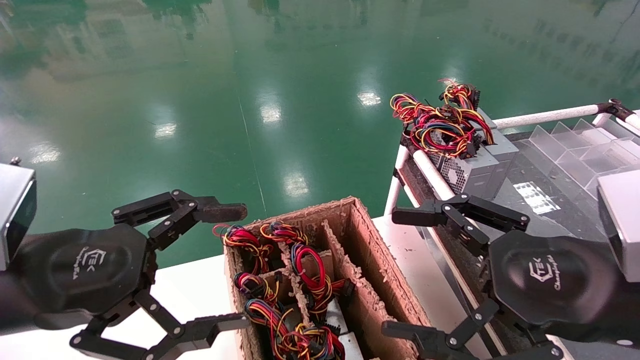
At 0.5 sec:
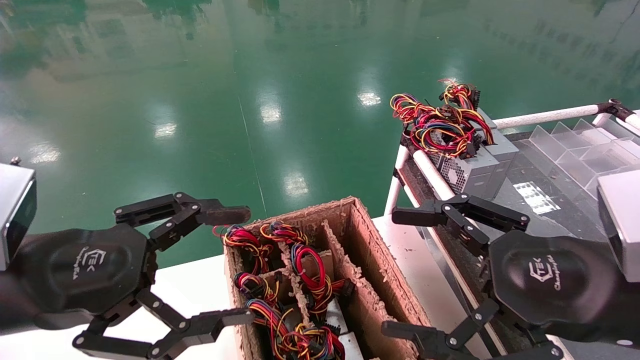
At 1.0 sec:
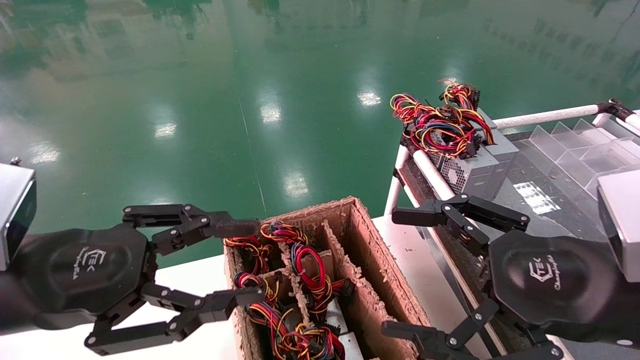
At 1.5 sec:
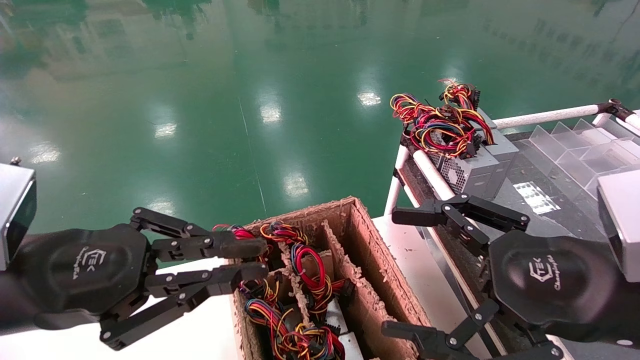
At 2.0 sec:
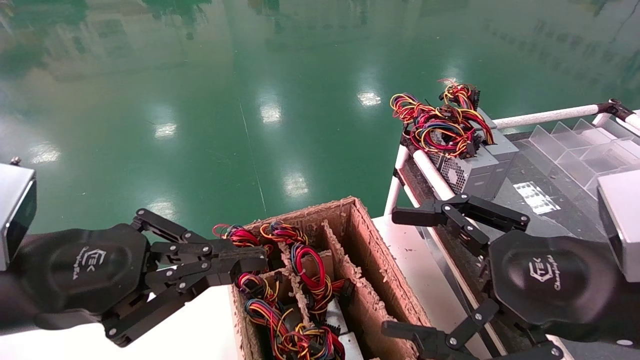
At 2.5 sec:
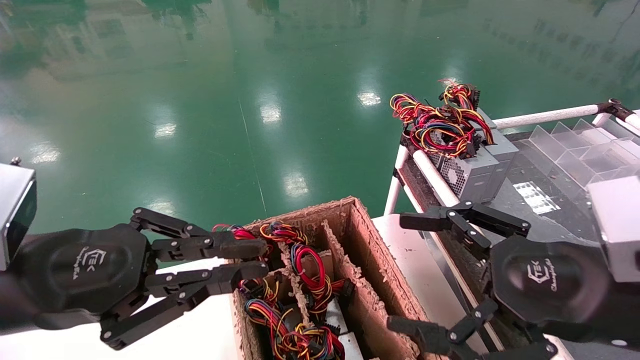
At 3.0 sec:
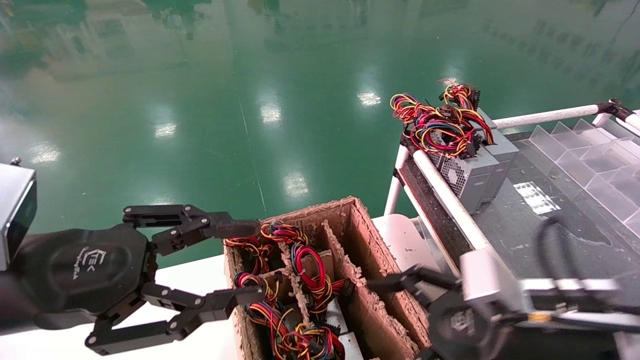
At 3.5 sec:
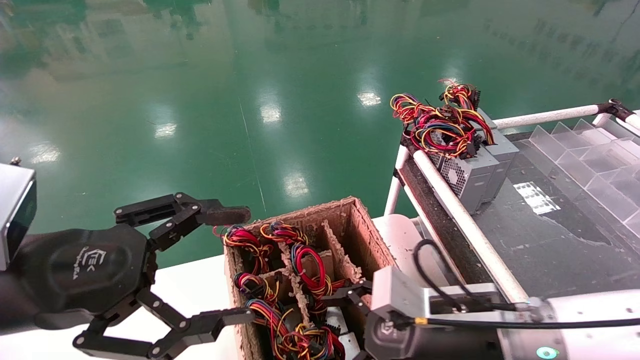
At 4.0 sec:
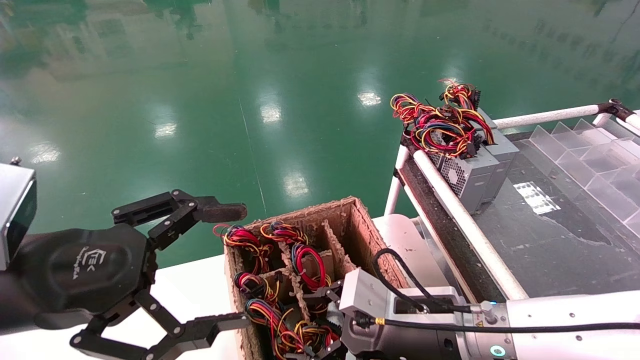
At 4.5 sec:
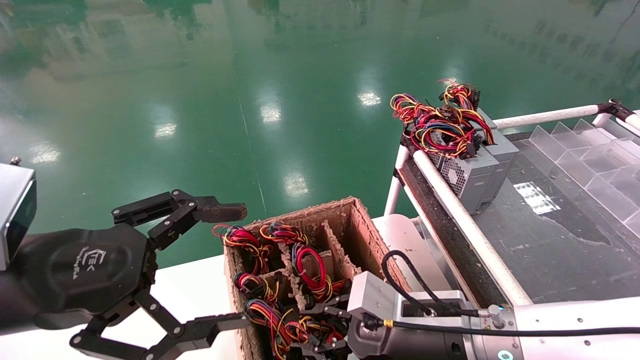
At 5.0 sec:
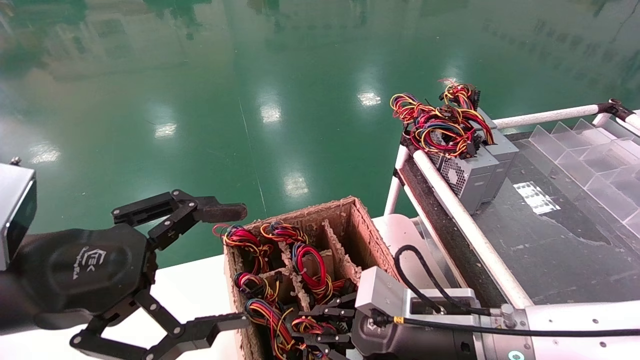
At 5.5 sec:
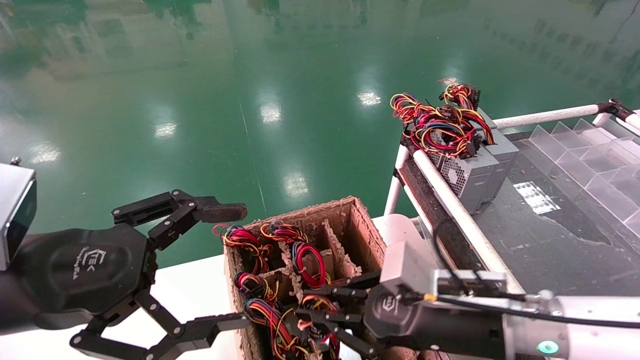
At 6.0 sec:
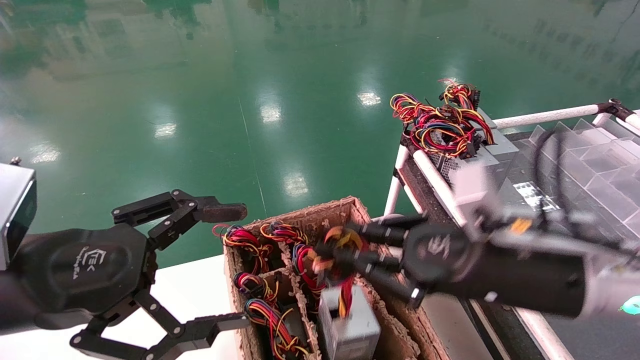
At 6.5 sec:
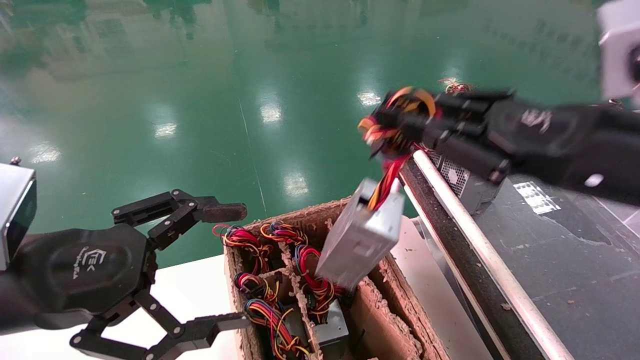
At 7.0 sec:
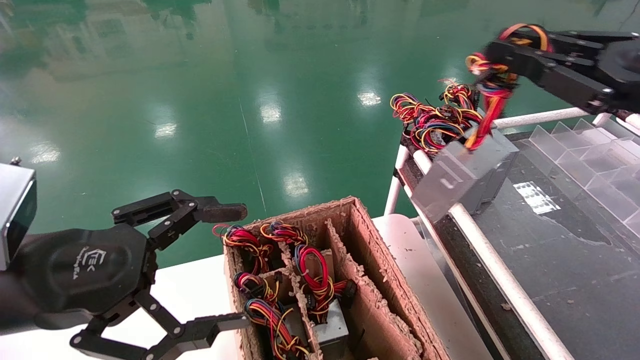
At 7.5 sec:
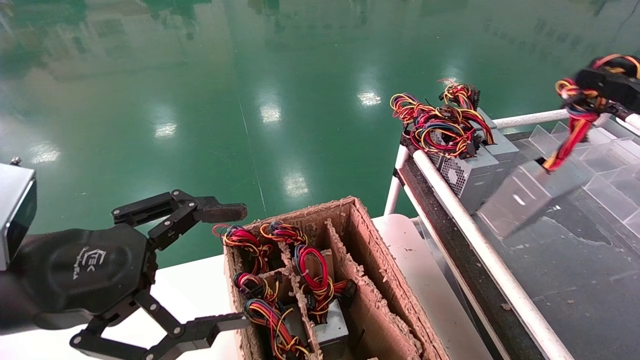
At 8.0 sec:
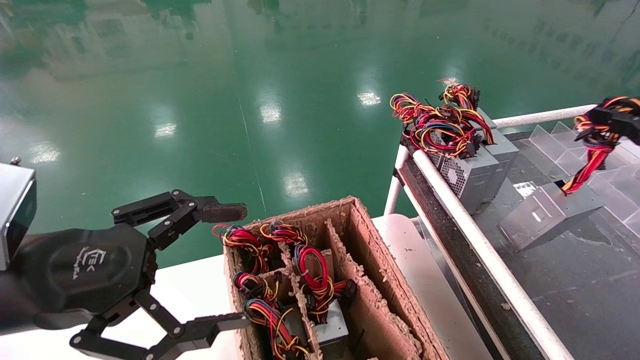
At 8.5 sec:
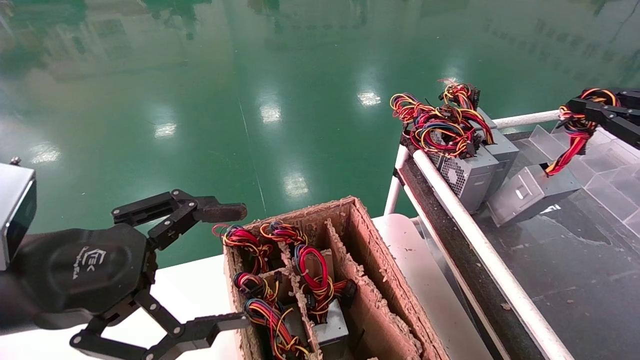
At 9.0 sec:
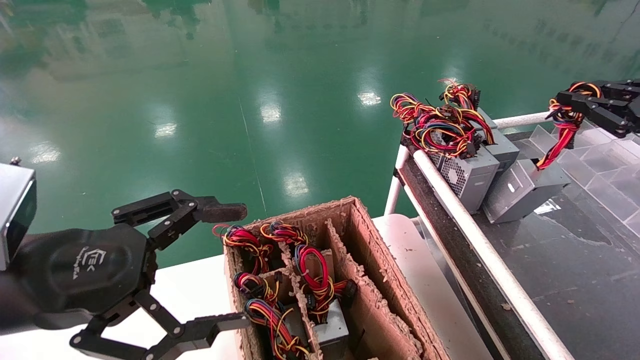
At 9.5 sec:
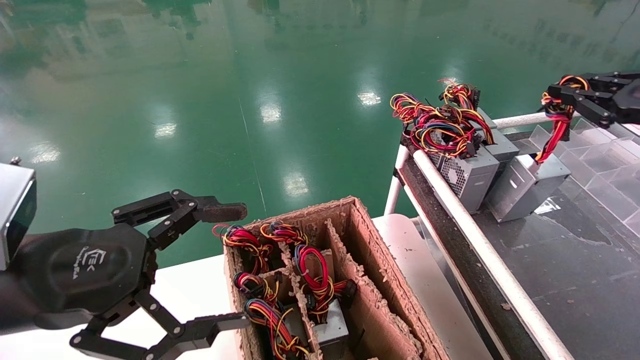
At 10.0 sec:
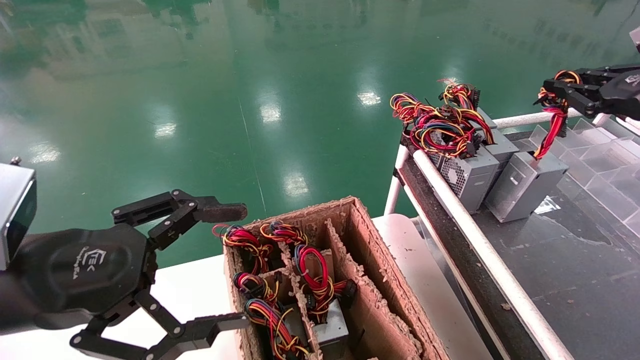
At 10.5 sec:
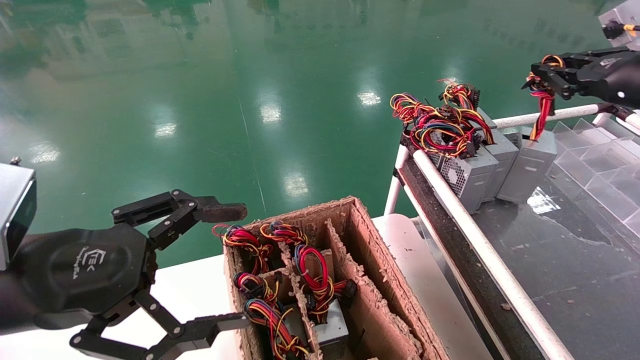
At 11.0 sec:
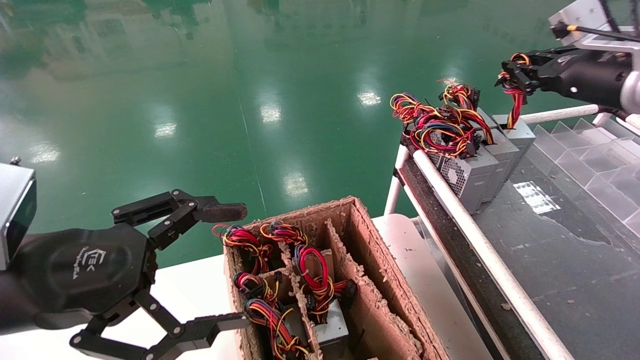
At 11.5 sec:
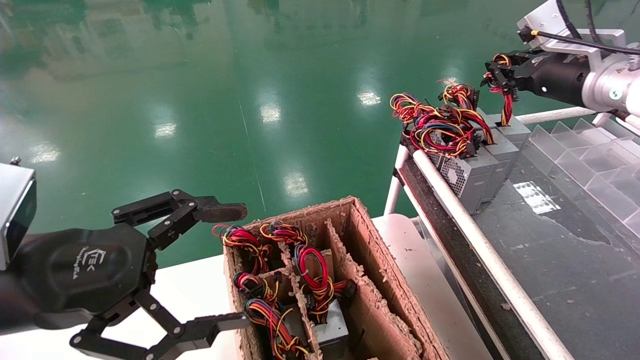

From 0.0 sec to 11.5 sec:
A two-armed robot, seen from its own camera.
Step, from 2.0 sec to 4.5 sec: Grab and lift the power supply from the large box.
From 0.0 sec to 2.0 sec: The left gripper closes.
From 2.0 sec to 4.0 sec: The left gripper opens, while the right gripper goes roughly 20 cm downward, to the left and forward.
From 4.0 sec to 6.0 sec: The right gripper shifts about 15 cm upward and to the right, and closes its fingers.
From 6.0 sec to 7.5 sec: The right gripper is displaced to the right and upward by roughly 25 cm.
From 7.5 sec to 9.5 sec: The right gripper is displaced forward by some 10 cm.
From 9.5 sec to 11.5 sec: The right gripper shifts about 15 cm to the left and forward.

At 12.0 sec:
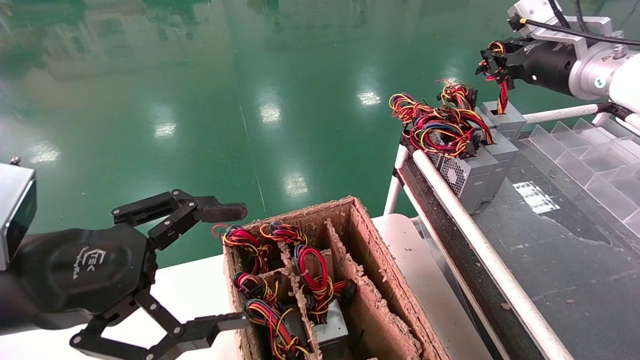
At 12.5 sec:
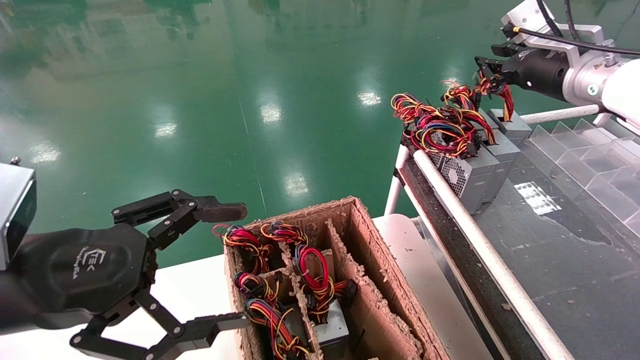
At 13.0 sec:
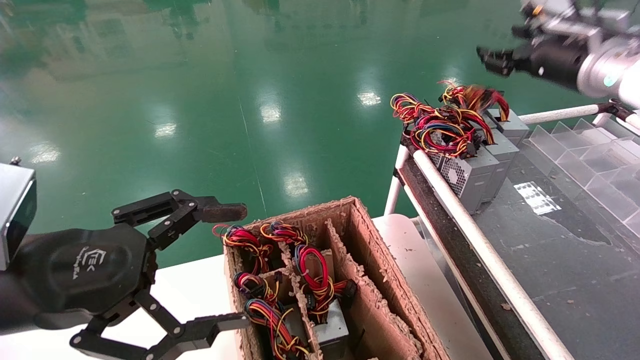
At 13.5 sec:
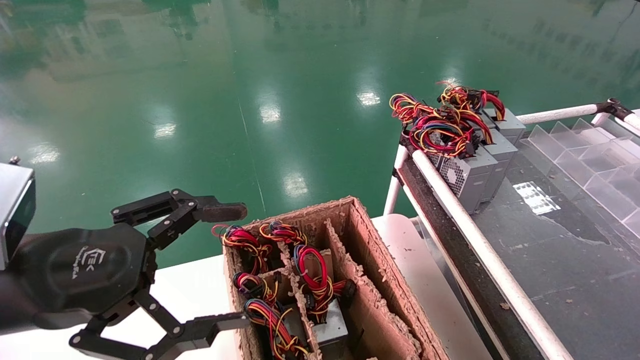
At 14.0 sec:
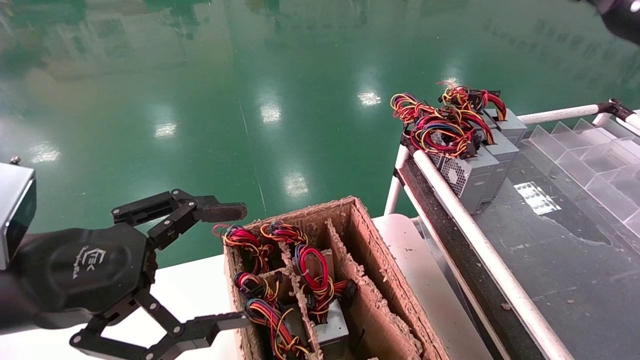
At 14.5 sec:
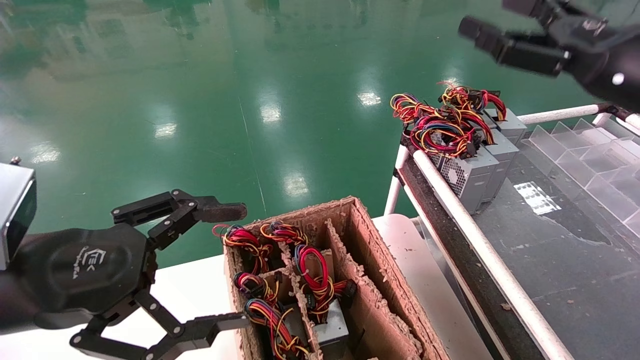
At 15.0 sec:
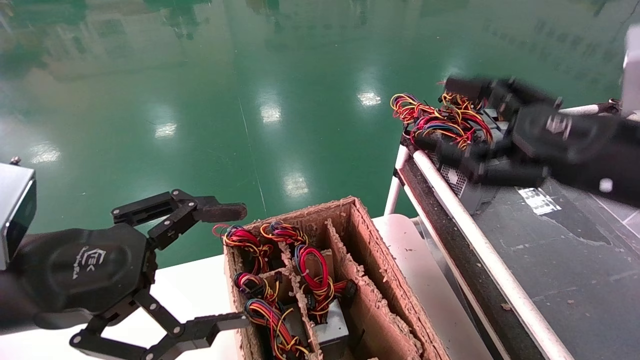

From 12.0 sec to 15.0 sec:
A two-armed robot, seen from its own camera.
From 12.0 sec to 13.5 sec: The right gripper is displaced backward and upward by approximately 10 cm, and opens up.
From 13.5 sec to 15.0 sec: The right gripper travels downward, backward and to the left by approximately 20 cm.

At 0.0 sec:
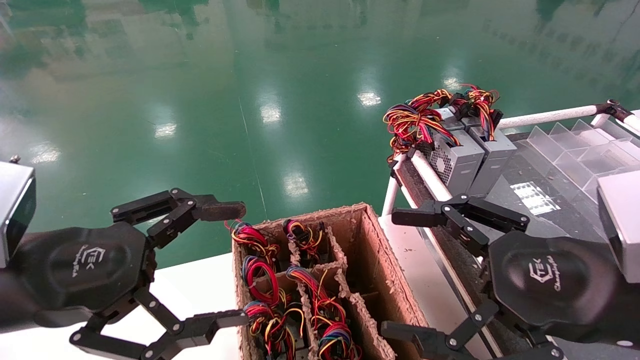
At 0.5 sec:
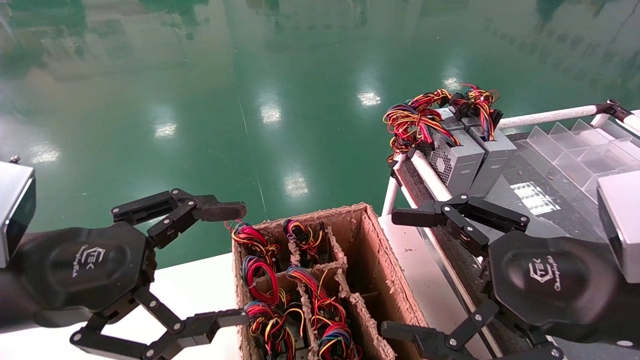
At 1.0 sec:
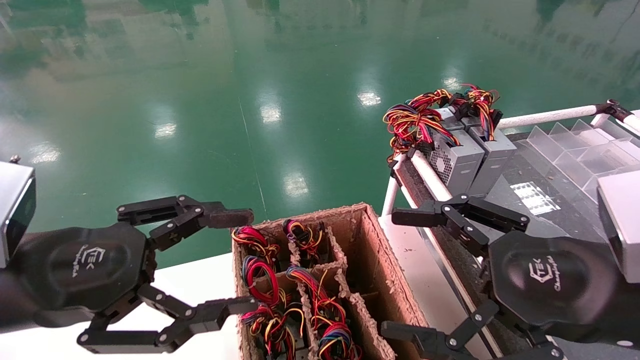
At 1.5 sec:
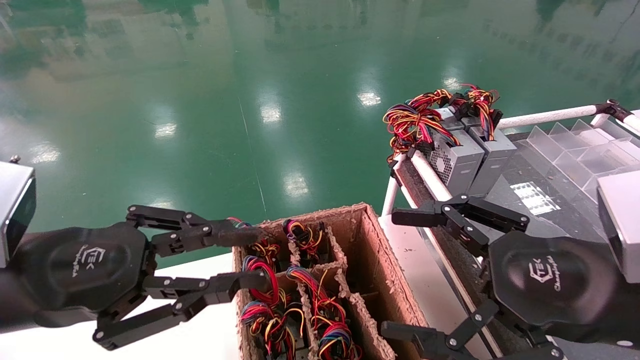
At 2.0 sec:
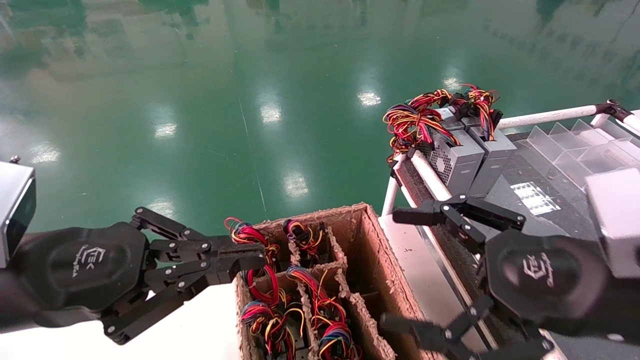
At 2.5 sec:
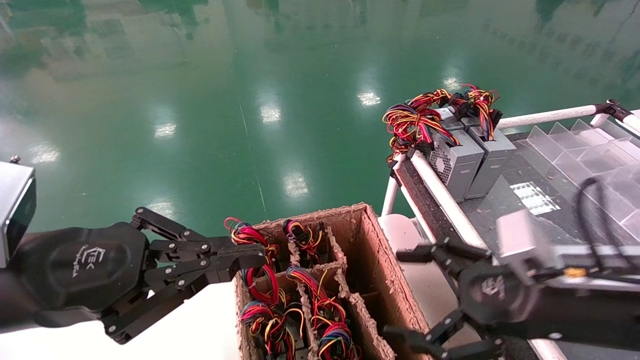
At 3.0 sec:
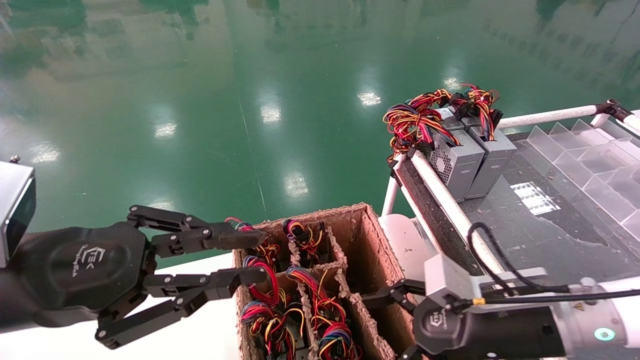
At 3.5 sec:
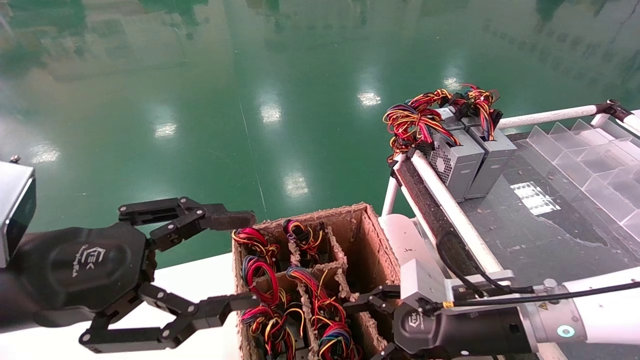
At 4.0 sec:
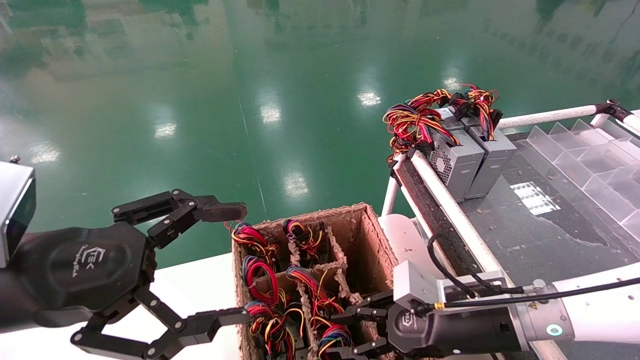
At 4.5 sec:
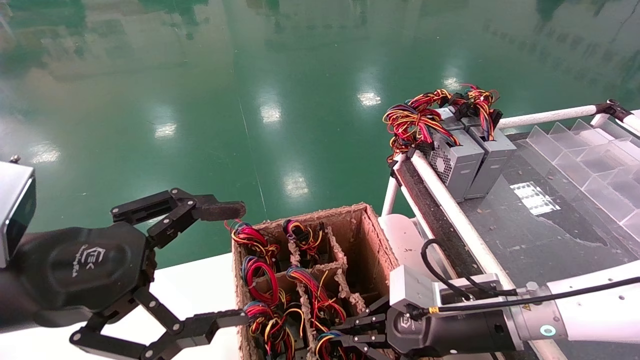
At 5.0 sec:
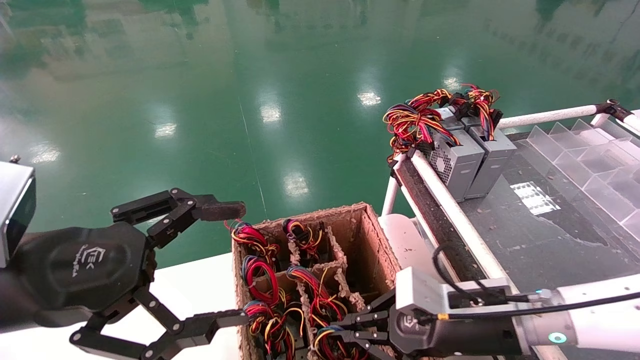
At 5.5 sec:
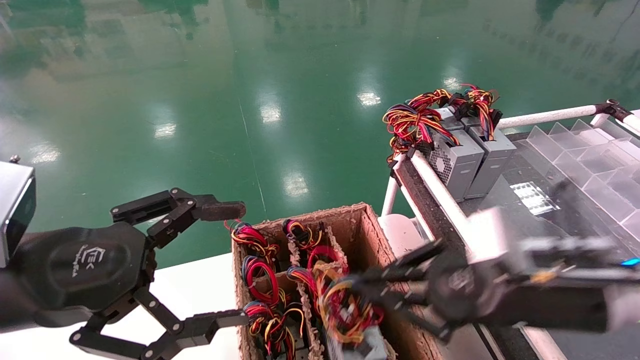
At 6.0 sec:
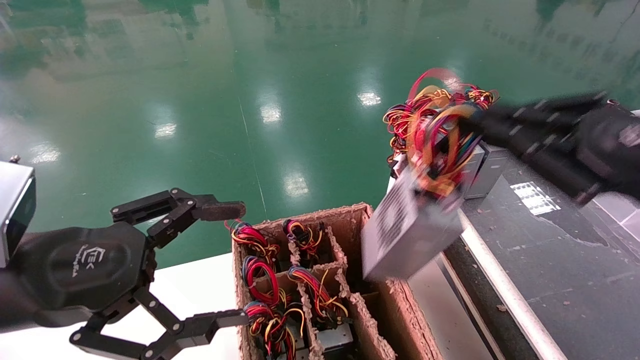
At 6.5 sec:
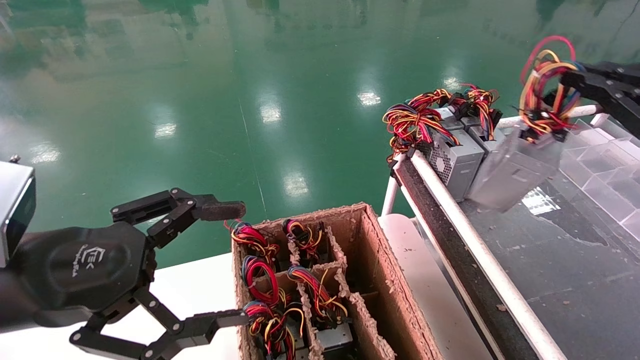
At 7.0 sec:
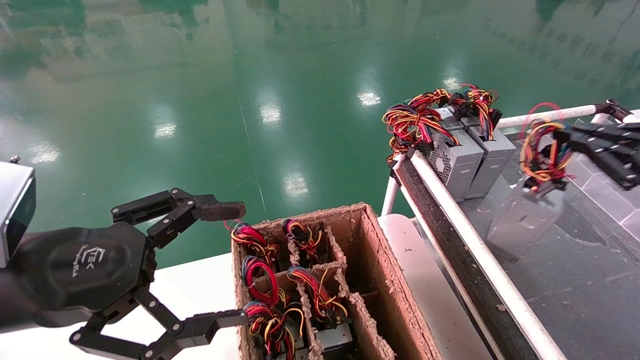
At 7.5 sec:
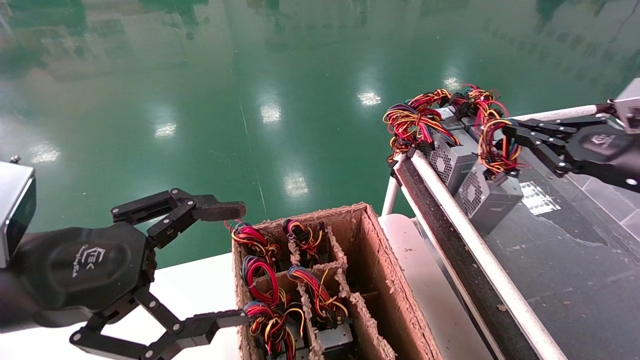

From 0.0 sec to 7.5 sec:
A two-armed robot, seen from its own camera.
Step, from 2.5 sec to 5.0 sec: Grab and lift the power supply from the large box.
From 0.0 sec to 2.0 sec: The left gripper closes its fingers.
From 2.0 sec to 4.0 sec: The left gripper opens its fingers, while the right gripper goes some 15 cm downward, forward and to the left, and closes its fingers.
From 4.0 sec to 5.5 sec: The right gripper goes about 10 cm upward, and closes.
From 5.5 sec to 7.5 sec: The right gripper is displaced to the right, forward and upward by some 20 cm.
